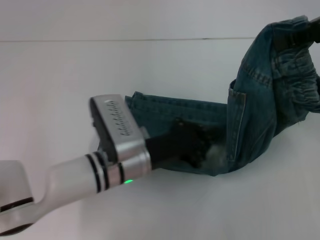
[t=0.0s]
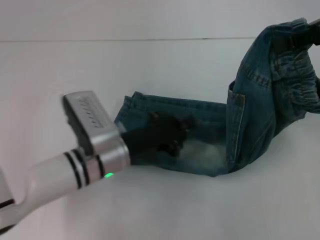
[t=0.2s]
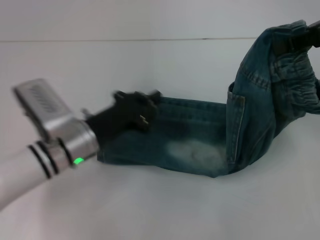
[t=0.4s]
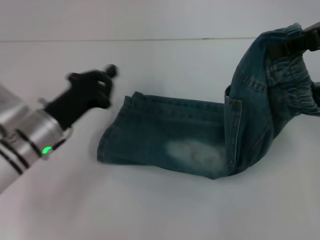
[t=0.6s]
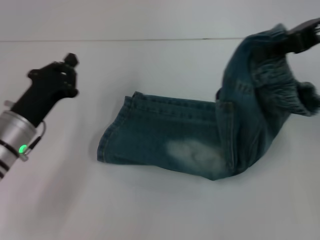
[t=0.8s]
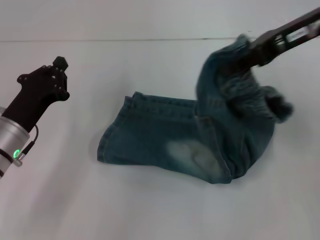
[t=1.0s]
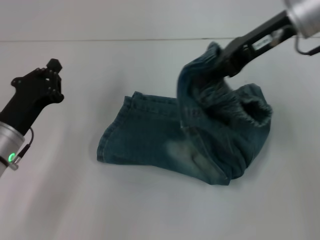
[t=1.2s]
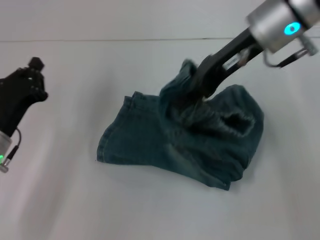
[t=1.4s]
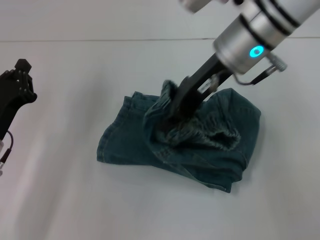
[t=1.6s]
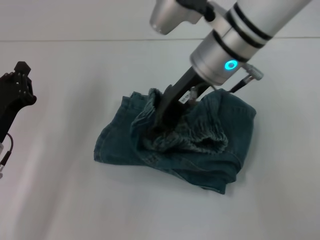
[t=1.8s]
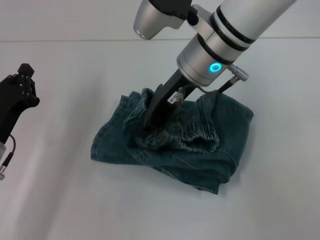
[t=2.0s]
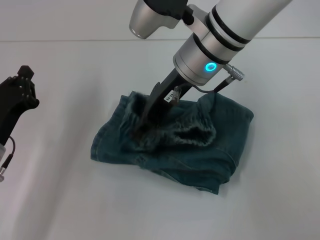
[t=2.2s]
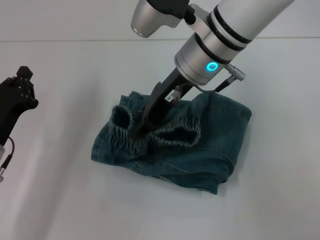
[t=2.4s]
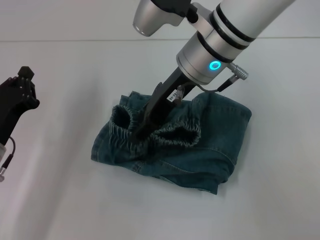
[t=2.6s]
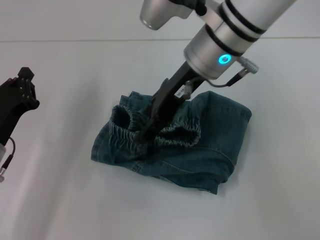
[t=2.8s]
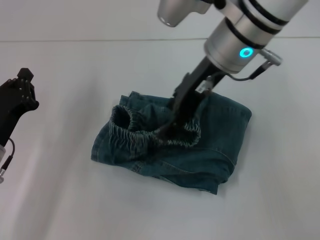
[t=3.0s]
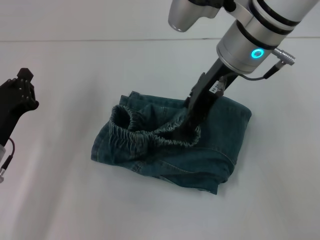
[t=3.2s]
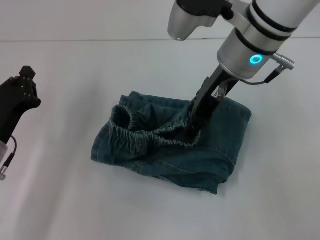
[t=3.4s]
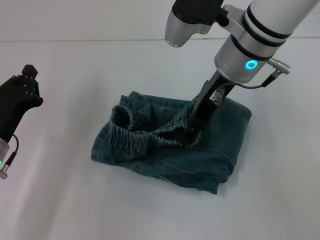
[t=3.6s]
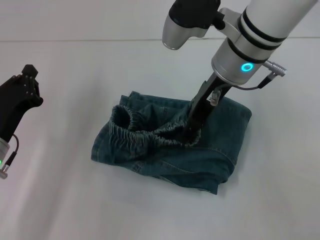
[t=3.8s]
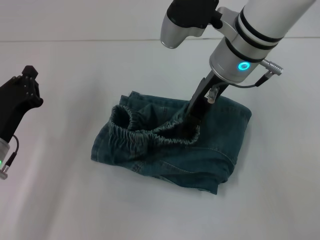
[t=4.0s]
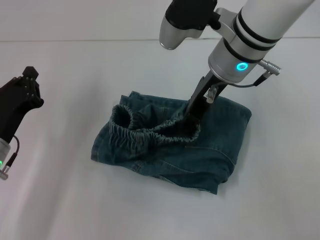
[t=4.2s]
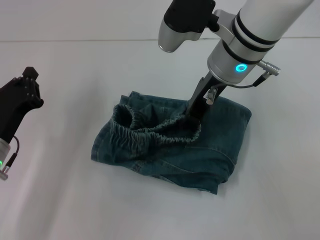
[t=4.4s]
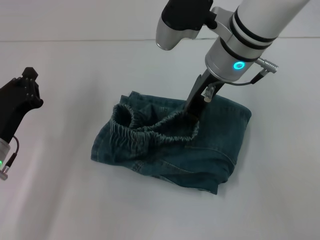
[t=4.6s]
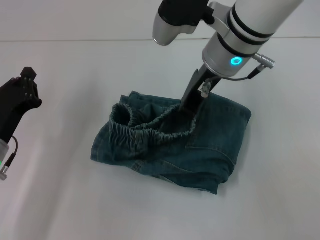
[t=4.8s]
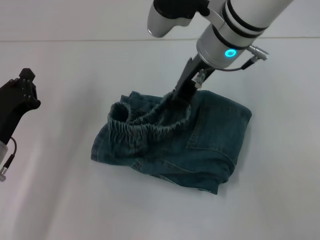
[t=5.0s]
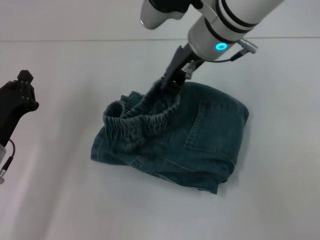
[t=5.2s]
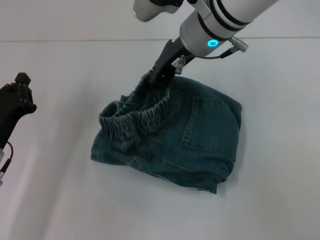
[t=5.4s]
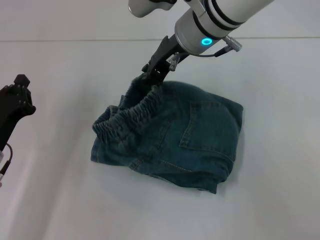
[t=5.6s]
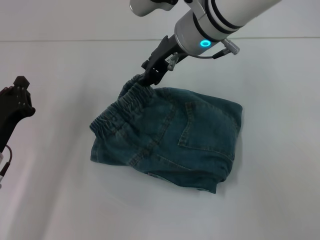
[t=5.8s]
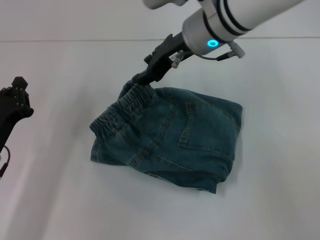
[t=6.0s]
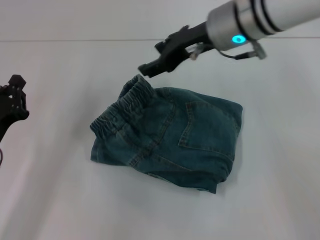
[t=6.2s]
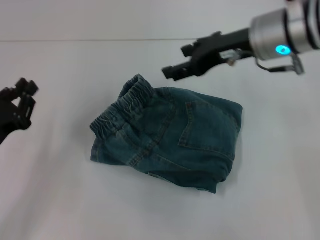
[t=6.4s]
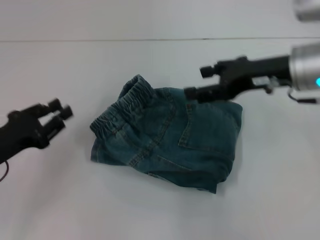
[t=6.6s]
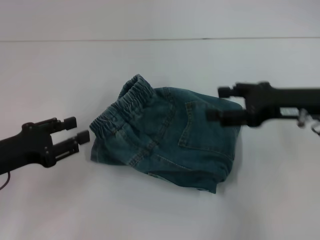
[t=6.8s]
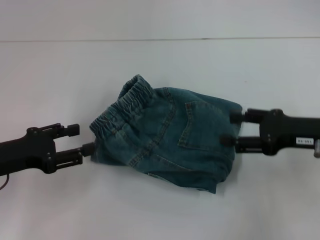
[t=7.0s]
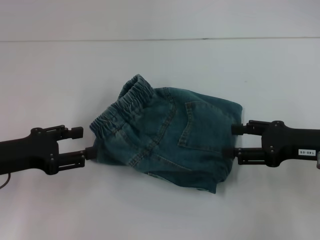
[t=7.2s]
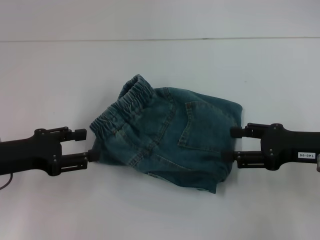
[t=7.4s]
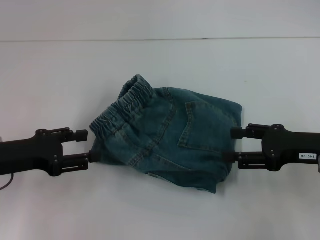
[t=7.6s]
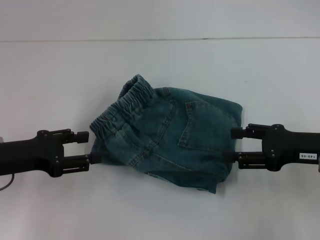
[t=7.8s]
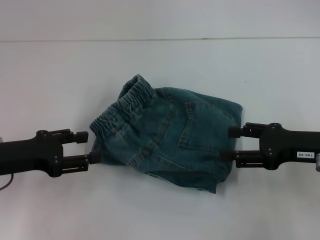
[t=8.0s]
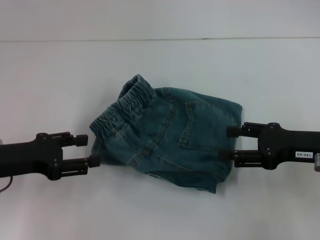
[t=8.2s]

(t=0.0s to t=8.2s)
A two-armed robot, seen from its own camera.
Step, t=0.2s - t=6.2s: Fold to the left with your right hand.
t=0.0s - t=1.6s: Both grippers move to the left, approximately 20 cm.
t=1.6s - t=3.2s: The right gripper opens its fingers.
t=3.2s - t=5.0s: The right gripper closes its fingers.
t=5.0s - t=6.6s: The right gripper is displaced to the right and backward by some 15 cm, and opens its fingers, while the left gripper moves about 5 cm.
t=6.6s - t=8.2s: The right gripper goes about 10 cm downward, backward and to the right, while the left gripper opens up.
